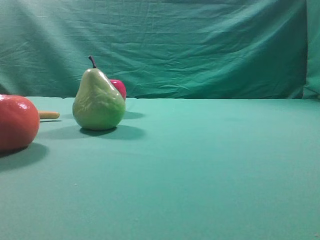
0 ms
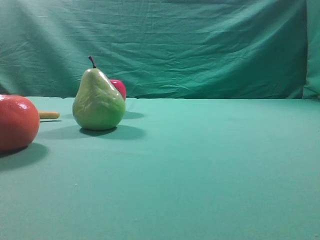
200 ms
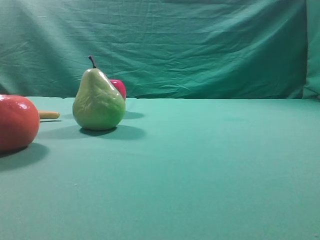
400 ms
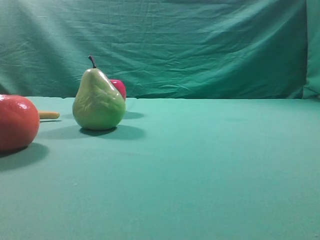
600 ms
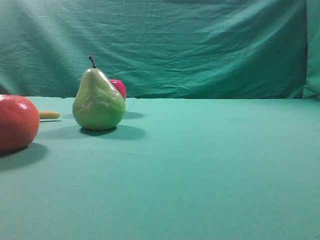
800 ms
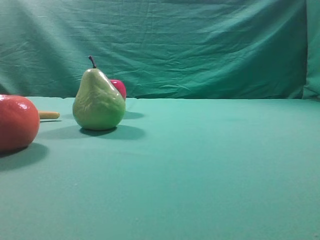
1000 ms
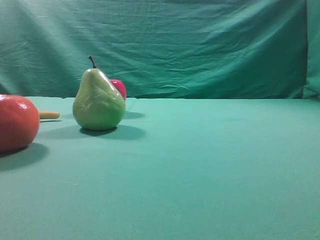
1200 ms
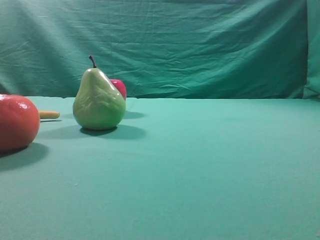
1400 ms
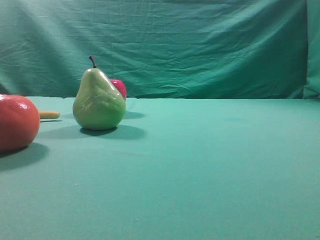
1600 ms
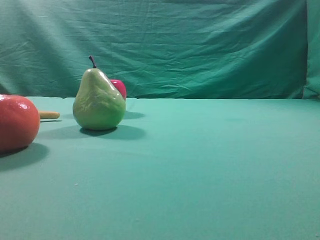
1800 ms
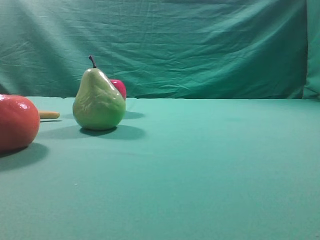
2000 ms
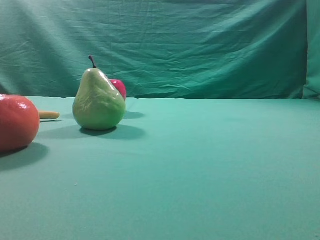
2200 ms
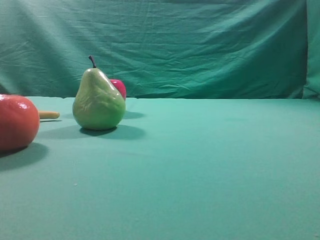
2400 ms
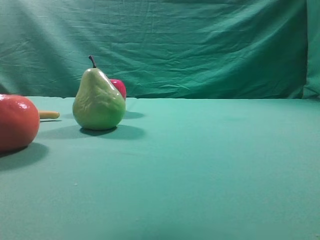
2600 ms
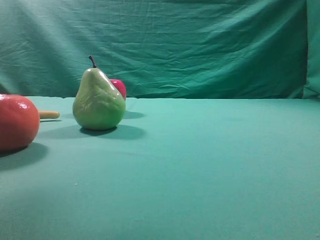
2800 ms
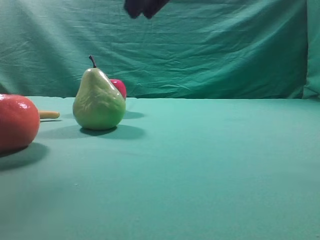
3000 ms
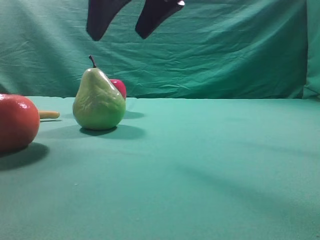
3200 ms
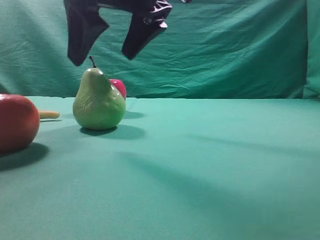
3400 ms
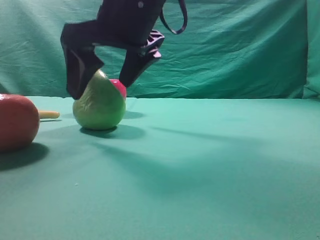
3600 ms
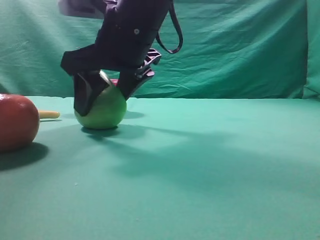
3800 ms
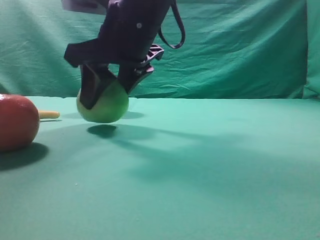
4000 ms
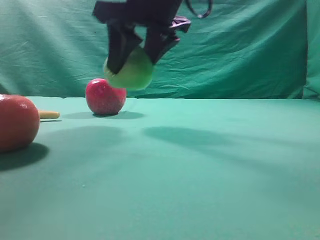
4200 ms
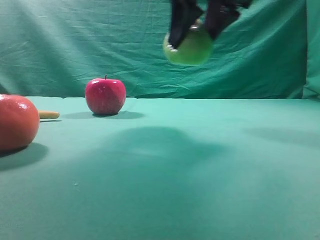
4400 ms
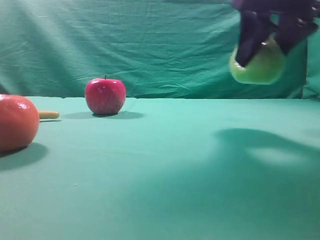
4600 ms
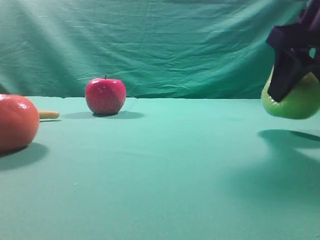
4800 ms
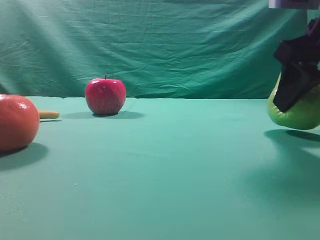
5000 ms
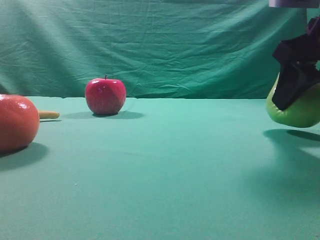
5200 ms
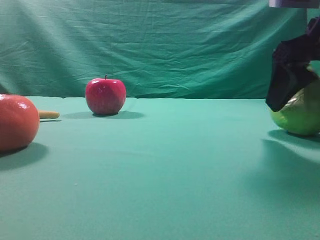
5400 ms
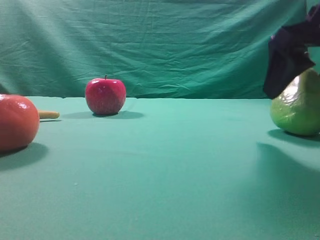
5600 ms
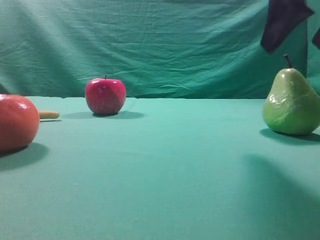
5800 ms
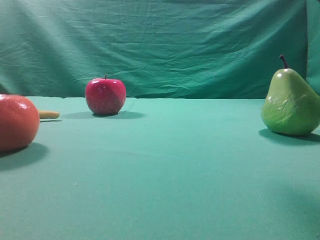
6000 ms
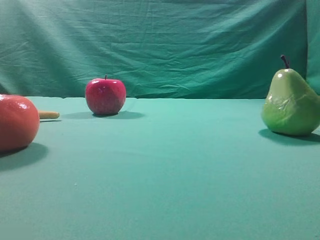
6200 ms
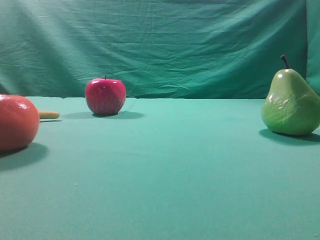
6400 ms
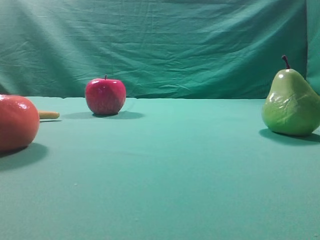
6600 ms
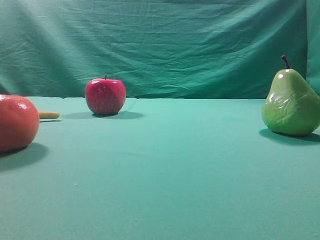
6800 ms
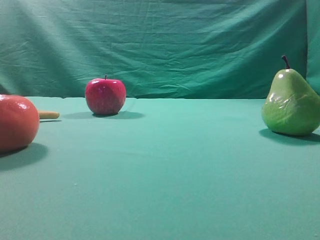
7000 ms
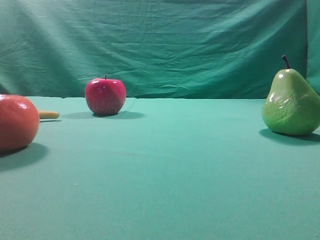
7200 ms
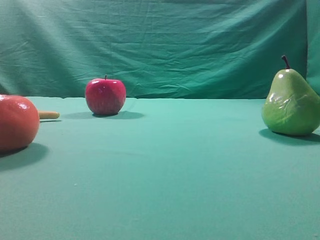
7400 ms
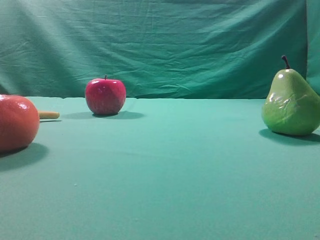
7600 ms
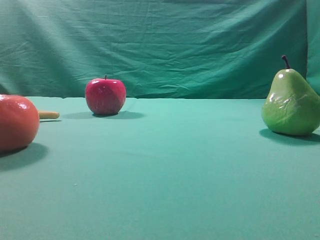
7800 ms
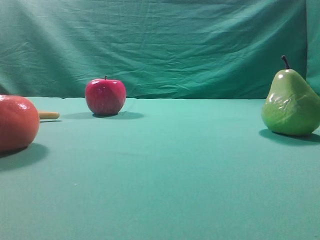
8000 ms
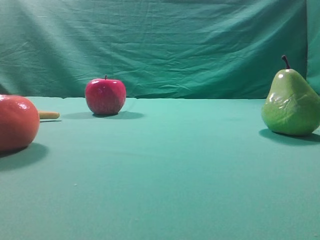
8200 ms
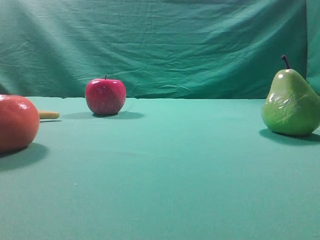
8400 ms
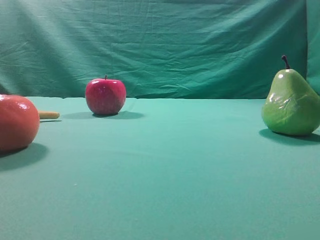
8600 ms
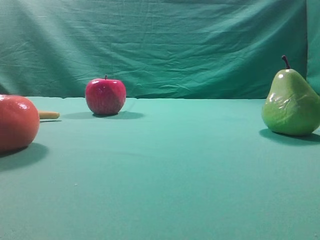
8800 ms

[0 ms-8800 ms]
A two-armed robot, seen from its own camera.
Task of the whole recording: Grasp the pear and place it on one side of the table.
Step, 0 ms to 4000 ms: Grasp the high-fiber fruit.
Step, 4200 ms to 5600 ms: Place it on the right side of the table.
